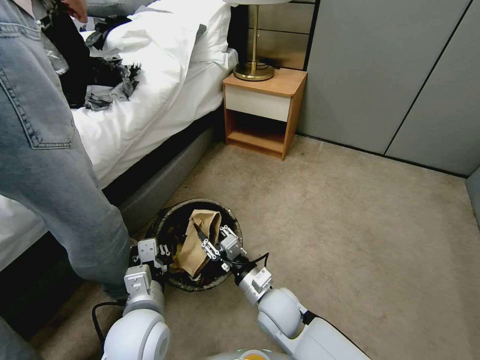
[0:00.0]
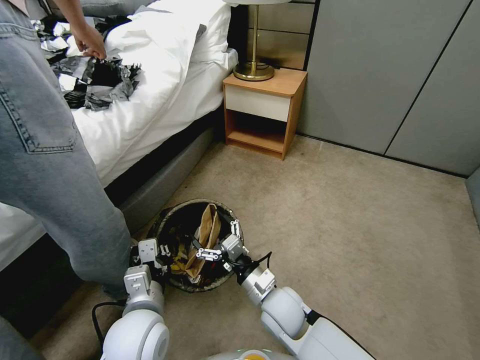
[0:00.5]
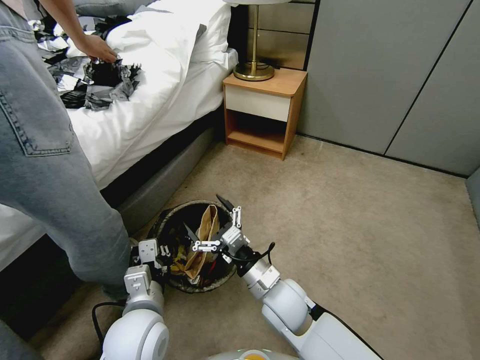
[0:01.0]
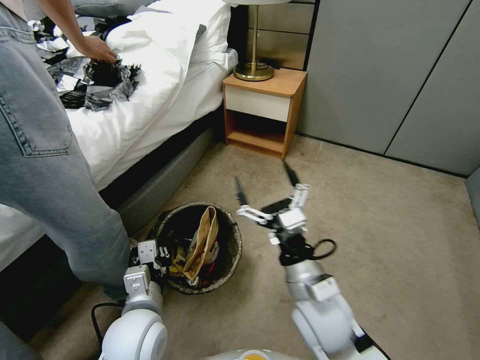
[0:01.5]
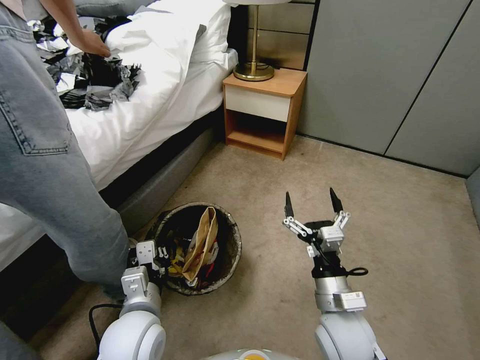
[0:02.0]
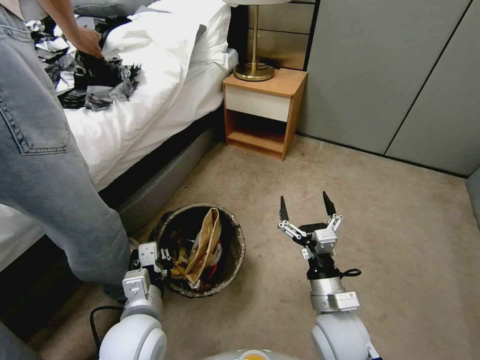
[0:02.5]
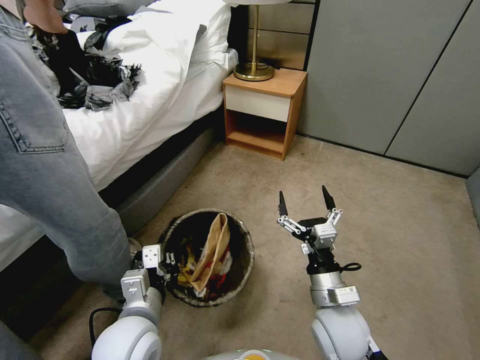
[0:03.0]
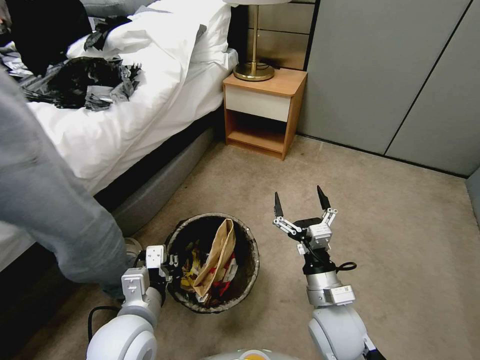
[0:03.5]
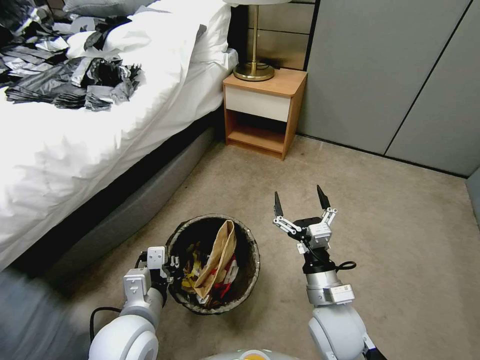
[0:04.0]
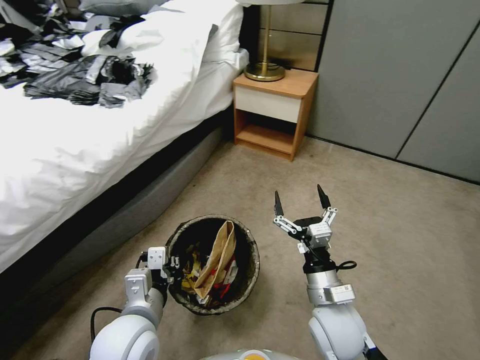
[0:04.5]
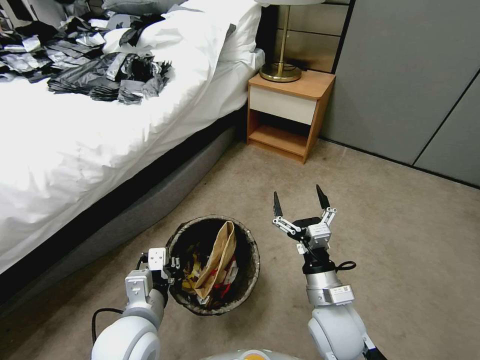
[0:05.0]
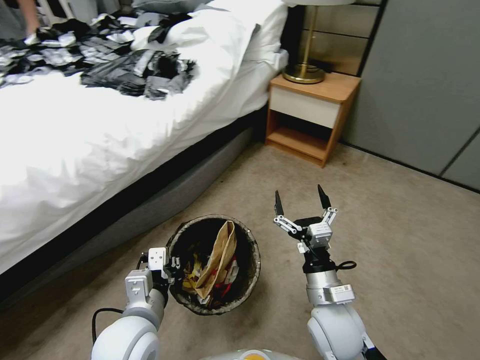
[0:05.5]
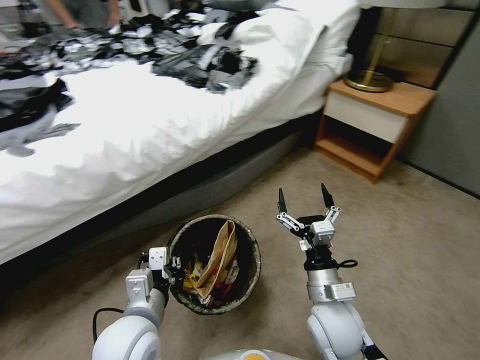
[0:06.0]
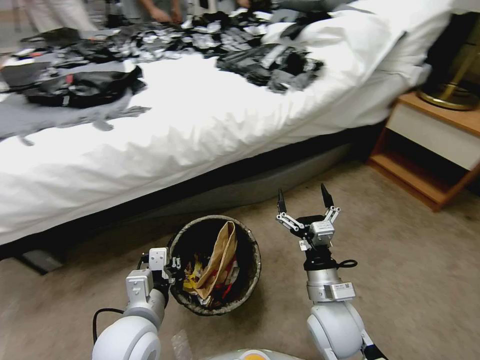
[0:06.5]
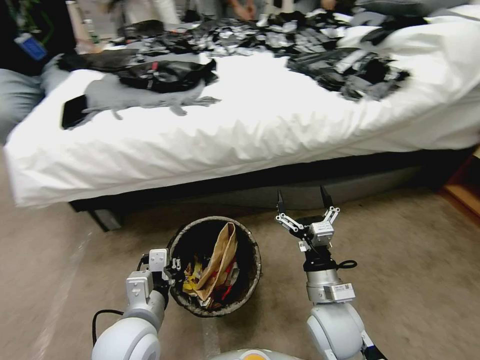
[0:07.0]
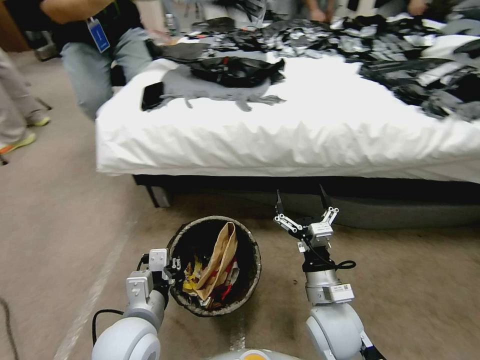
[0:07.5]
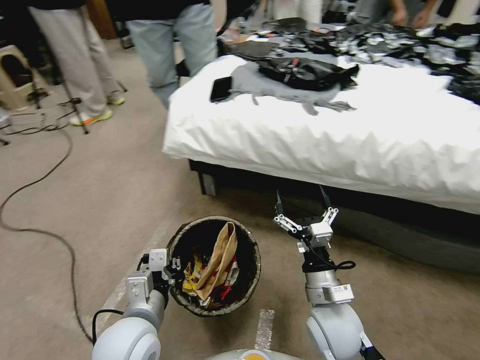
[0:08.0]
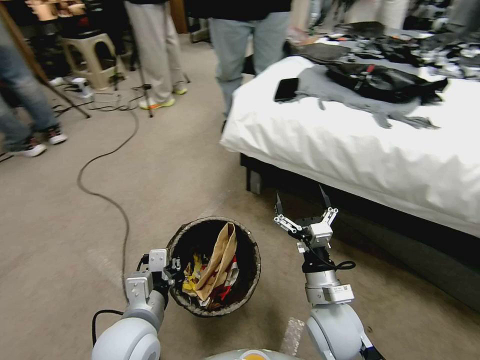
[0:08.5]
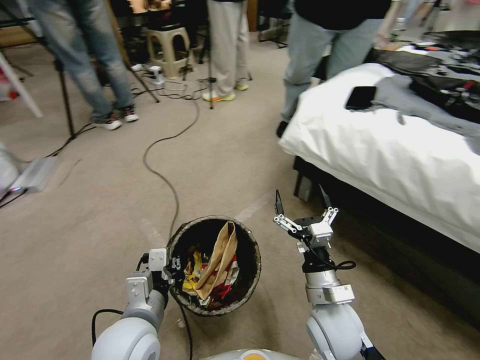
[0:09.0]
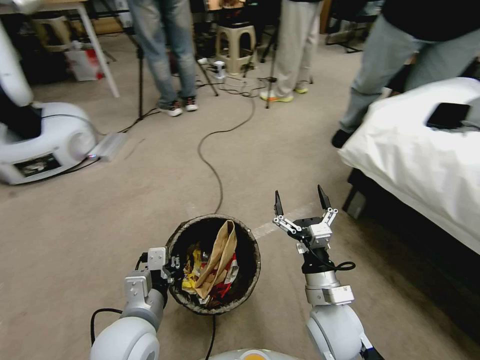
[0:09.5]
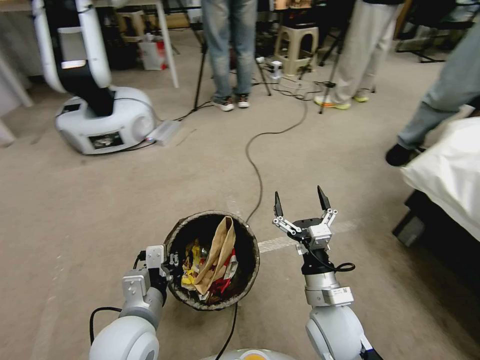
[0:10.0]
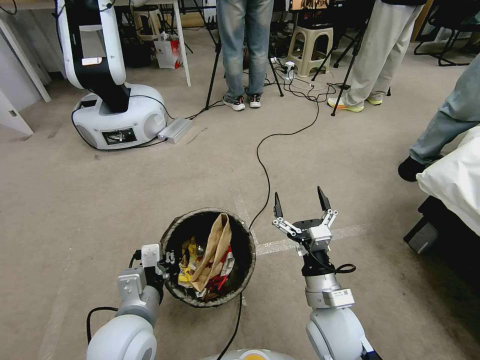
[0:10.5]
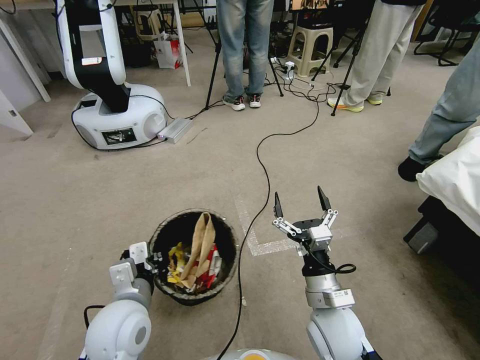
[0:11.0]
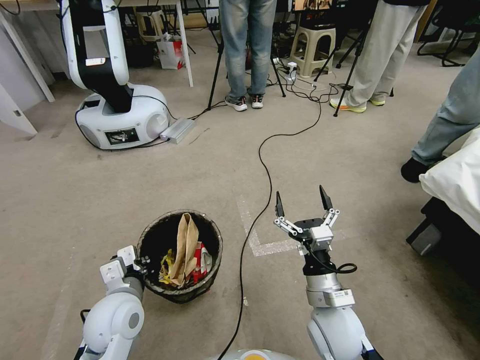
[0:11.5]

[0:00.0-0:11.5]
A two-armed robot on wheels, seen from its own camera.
Task of the whole recording: Pick up the trash bin, then pick up the garbage from the floor and place it into the trash bin.
0:00.0 to 0:02.0: The right gripper moves to the right, upward and backward, roughly 15 cm, and opens its fingers.
0:09.5 to 0:11.5: The left gripper is displaced to the left by approximately 5 cm.

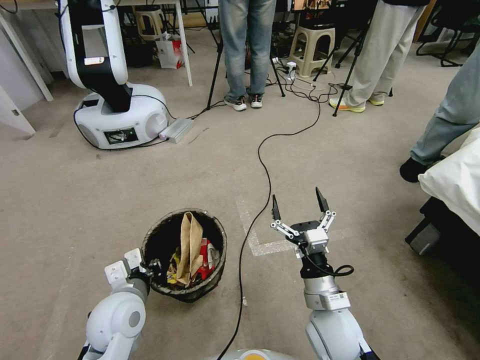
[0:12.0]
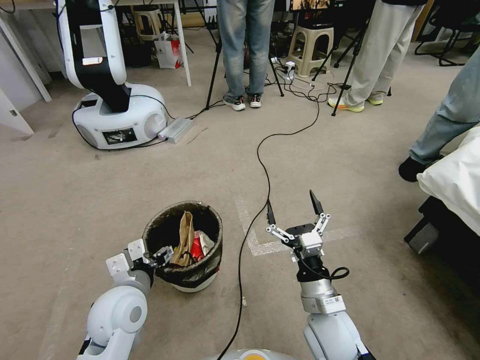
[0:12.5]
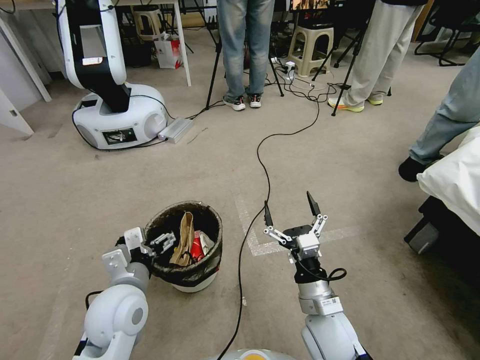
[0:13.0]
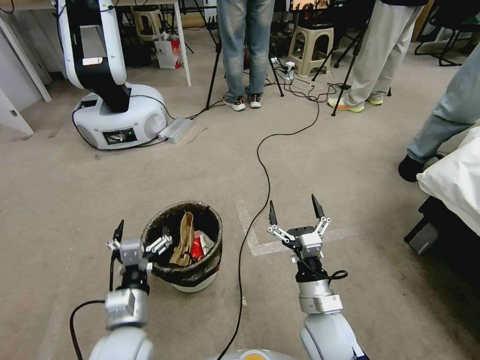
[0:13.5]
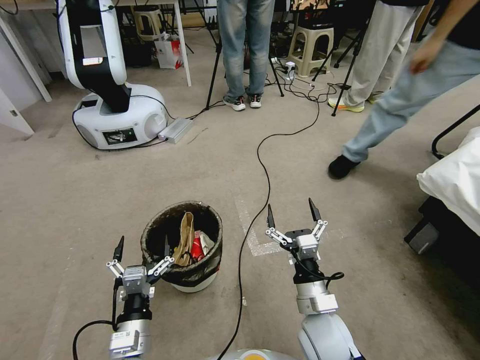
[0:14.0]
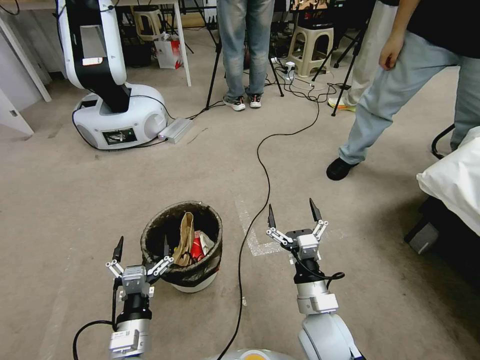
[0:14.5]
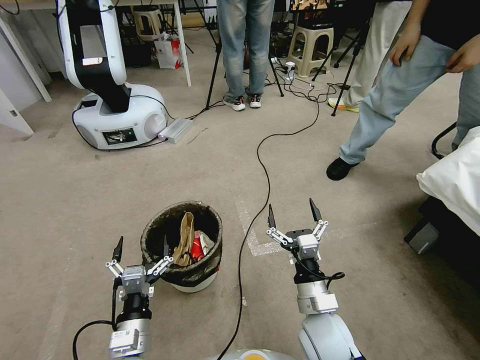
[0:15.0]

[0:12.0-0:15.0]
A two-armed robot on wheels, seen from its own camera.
Task of the whole recording: Pick up the trash bin, then pick up the garbage from the floor and place it into the trash bin.
0:12.0 to 0:13.5: The left gripper goes some 5 cm backward, and opens.
0:13.5 to 0:15.0: The left gripper is displaced downward by approximately 5 cm.

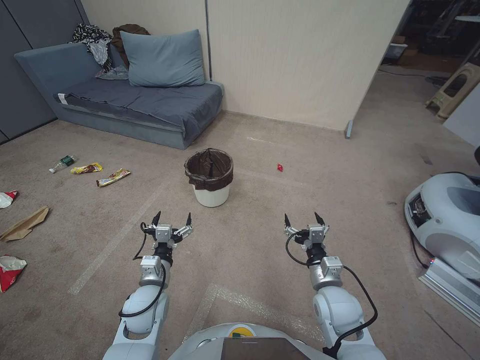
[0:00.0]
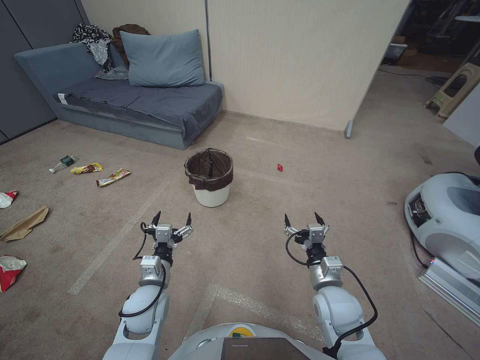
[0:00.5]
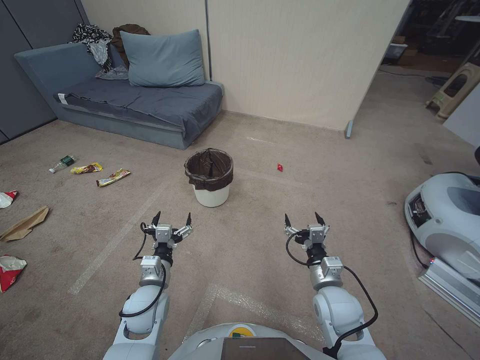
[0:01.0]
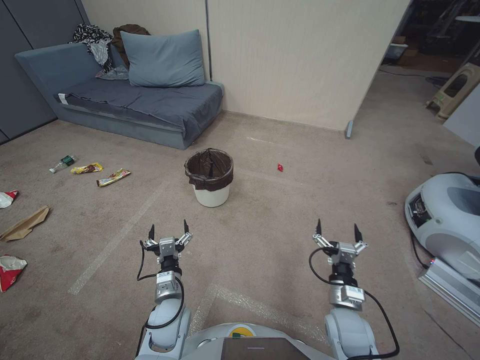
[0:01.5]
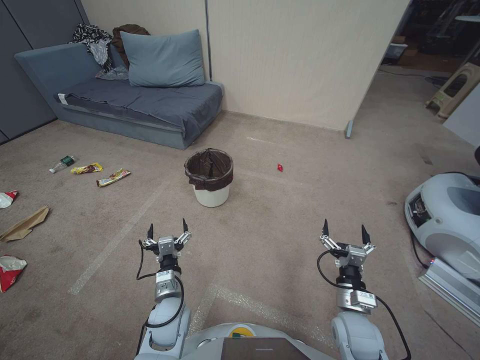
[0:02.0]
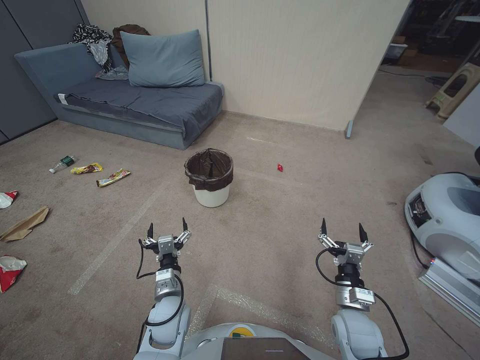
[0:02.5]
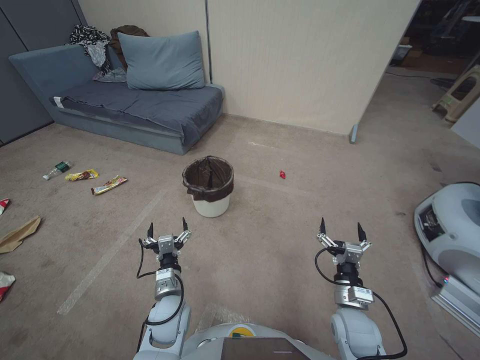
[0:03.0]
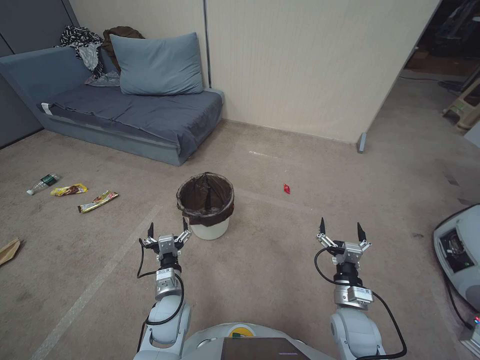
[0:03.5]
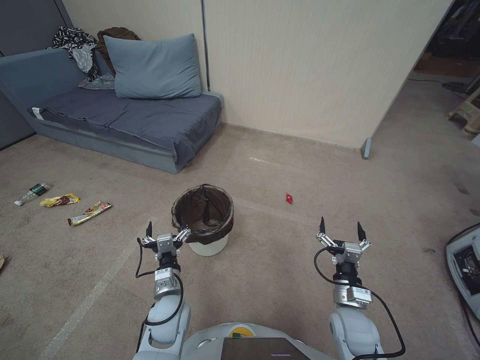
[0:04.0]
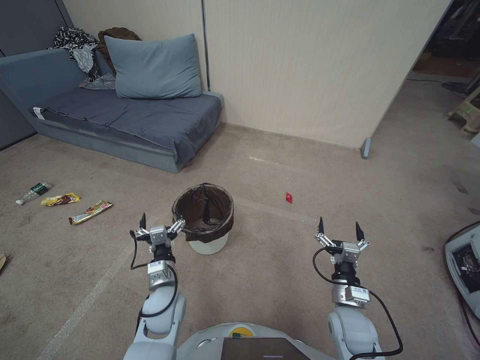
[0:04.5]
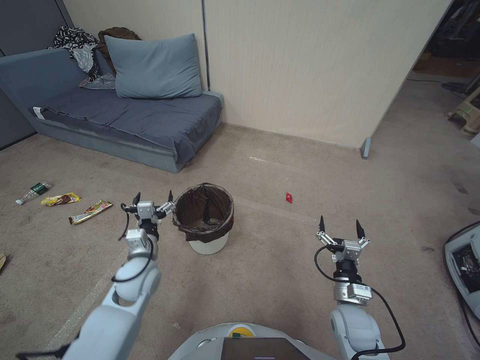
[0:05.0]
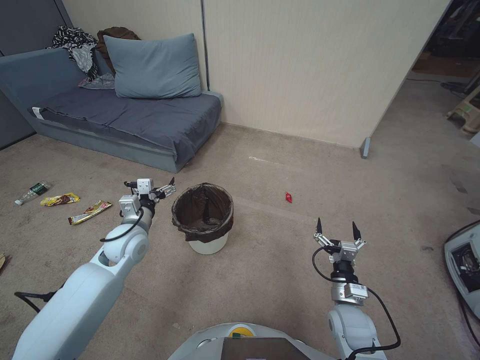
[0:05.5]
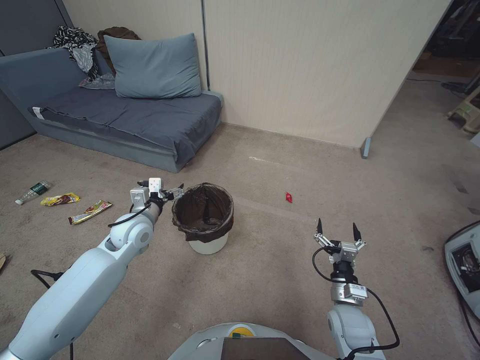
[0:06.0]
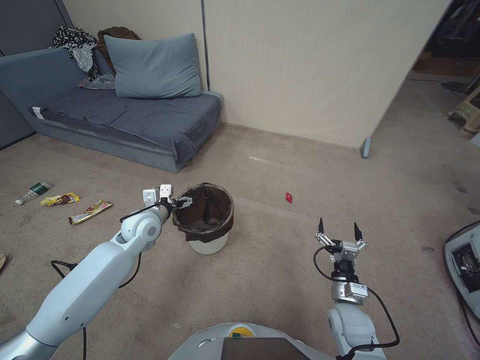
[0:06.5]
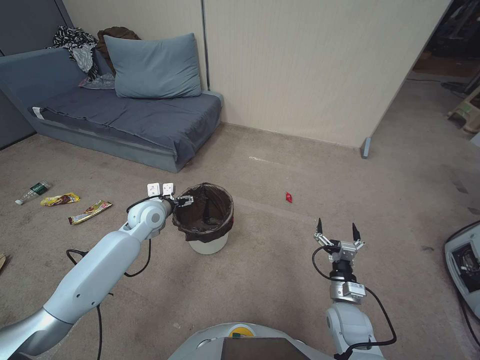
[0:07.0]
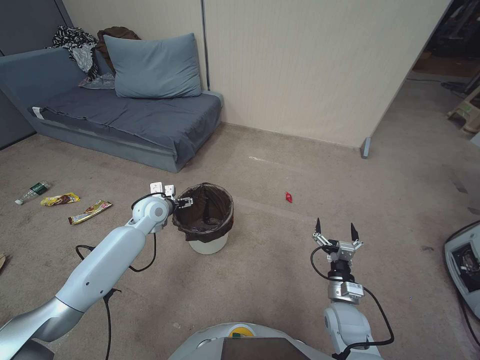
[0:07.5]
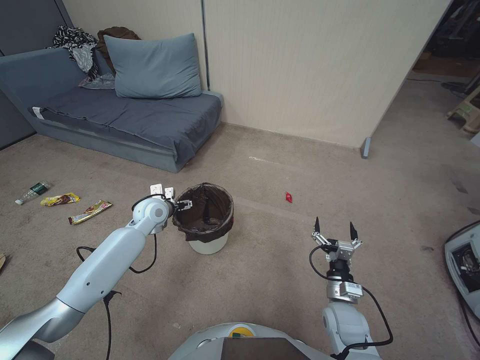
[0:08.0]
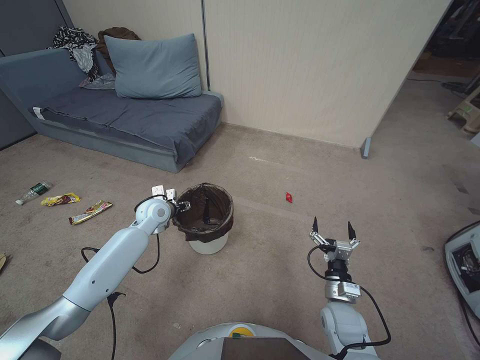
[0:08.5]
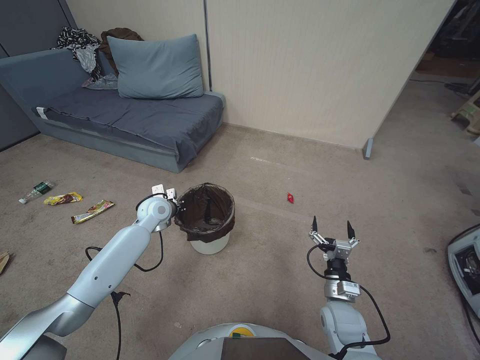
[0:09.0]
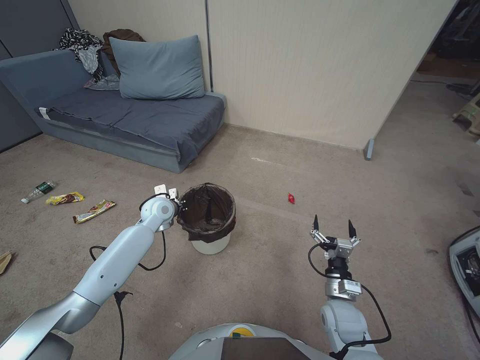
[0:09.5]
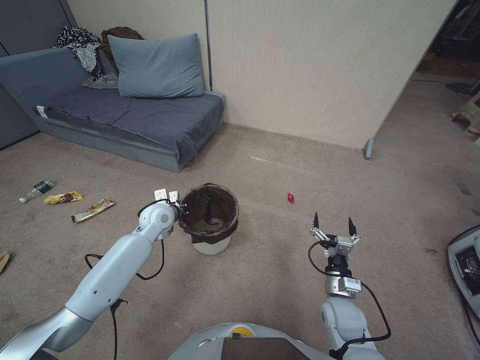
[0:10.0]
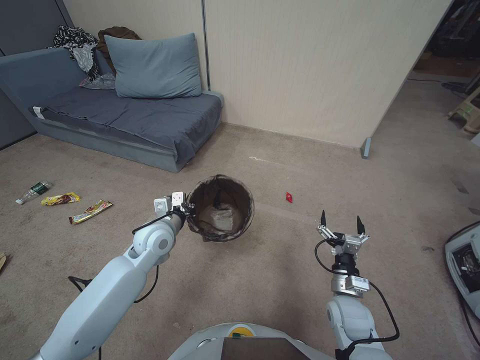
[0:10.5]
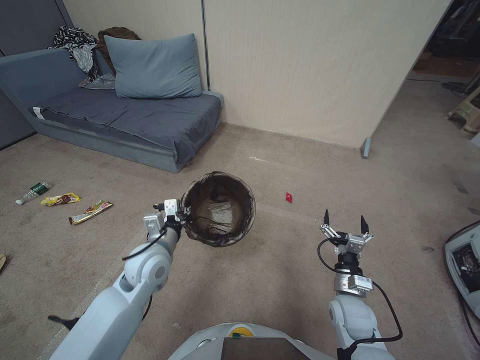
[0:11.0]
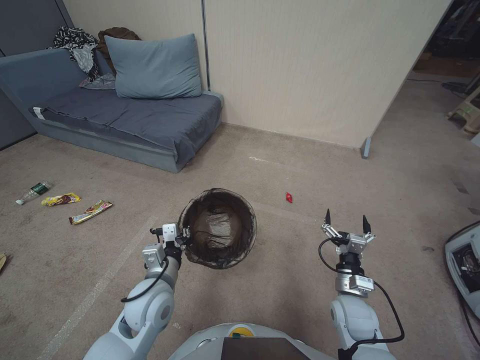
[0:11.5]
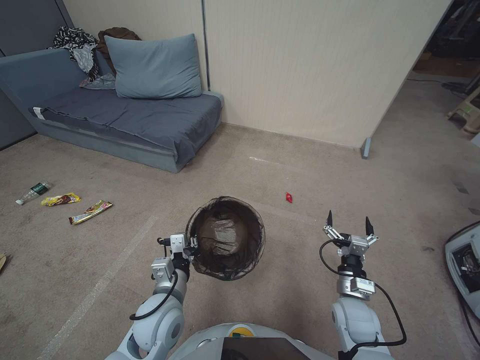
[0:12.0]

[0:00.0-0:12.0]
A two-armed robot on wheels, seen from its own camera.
Task of the whole recording: Pick up the trash bin, then pick up the garbage from the floor and place it into the trash bin.
0:04.0 to 0:06.0: The left gripper heads forward, upward and to the left, covering approximately 25 cm.
0:06.0 to 0:08.0: The left gripper is displaced forward by about 10 cm.
0:08.0 to 0:10.0: The left gripper closes.
0:10.0 to 0:12.0: The left gripper heads backward, covering about 25 cm.
